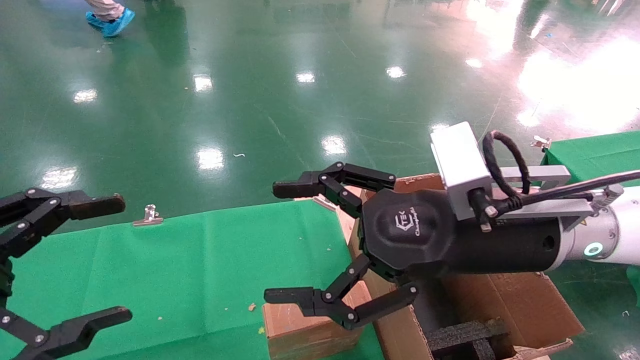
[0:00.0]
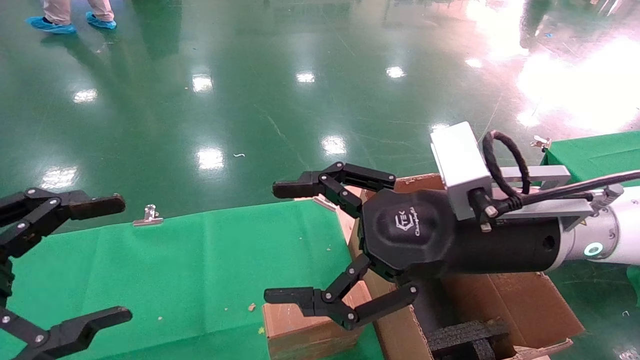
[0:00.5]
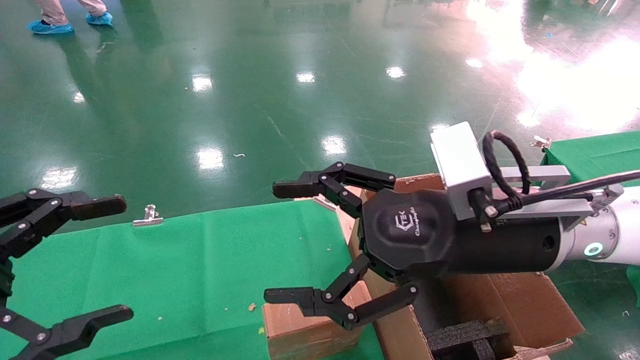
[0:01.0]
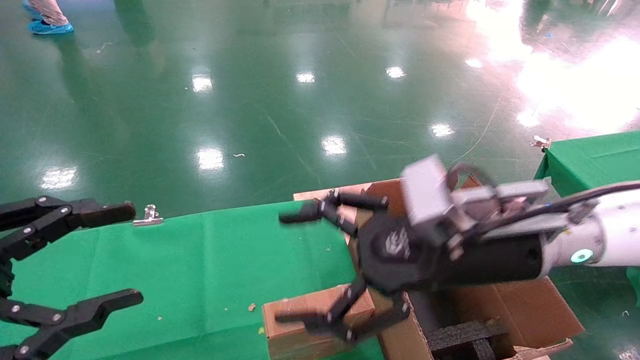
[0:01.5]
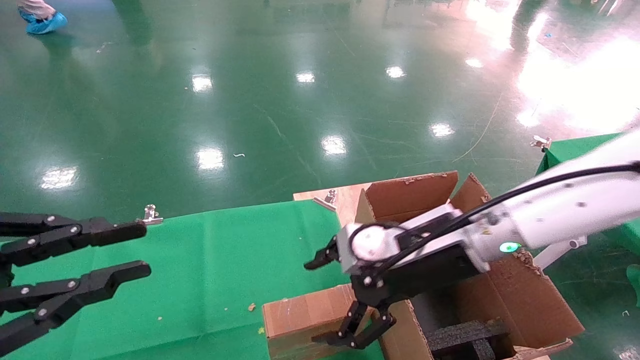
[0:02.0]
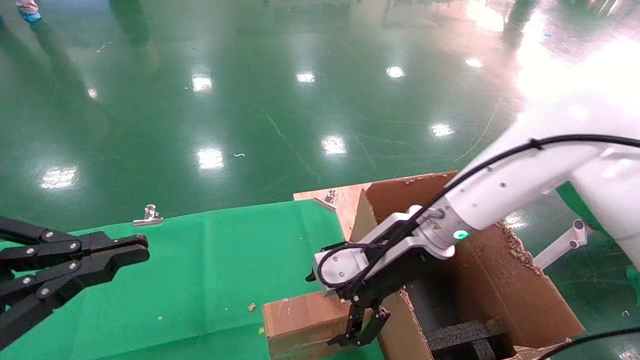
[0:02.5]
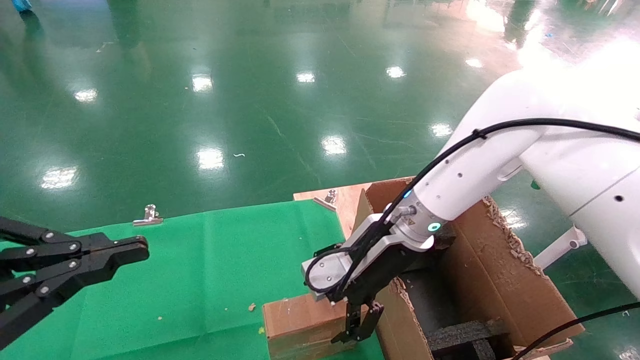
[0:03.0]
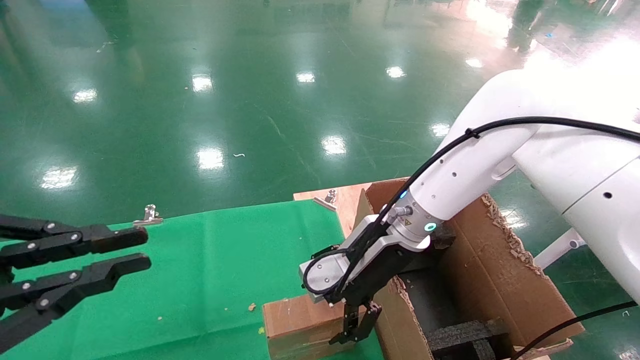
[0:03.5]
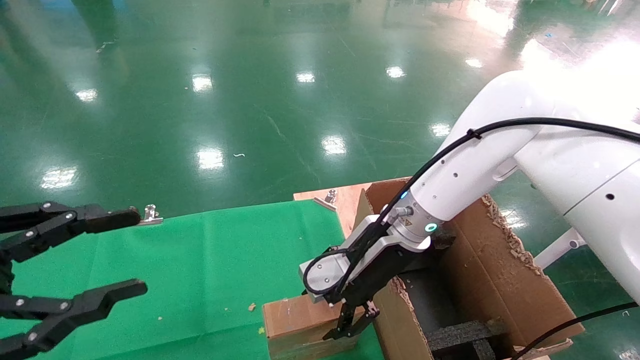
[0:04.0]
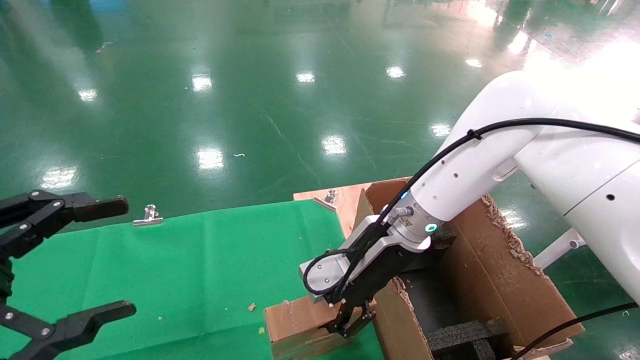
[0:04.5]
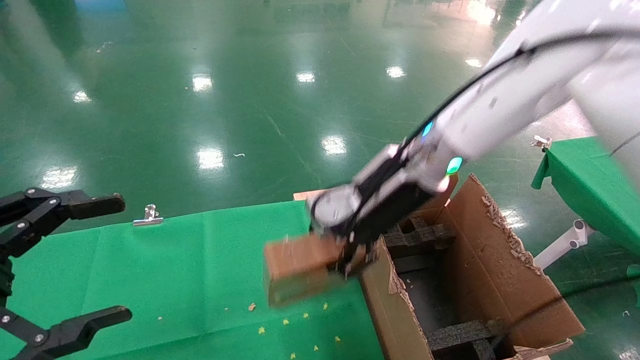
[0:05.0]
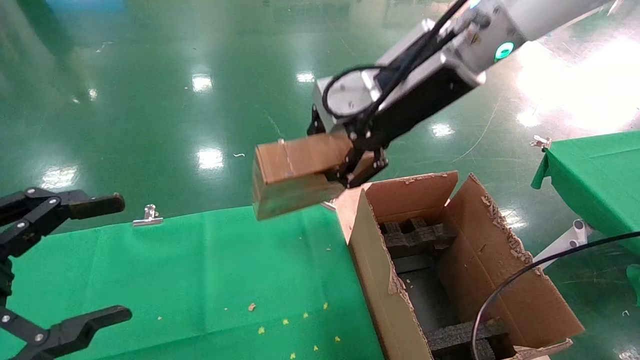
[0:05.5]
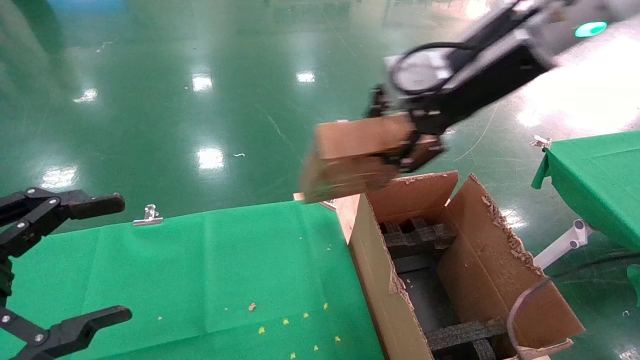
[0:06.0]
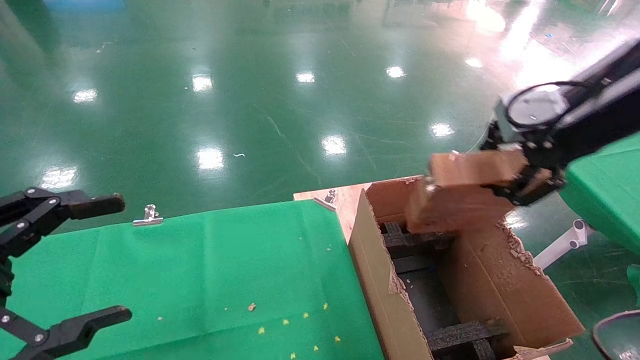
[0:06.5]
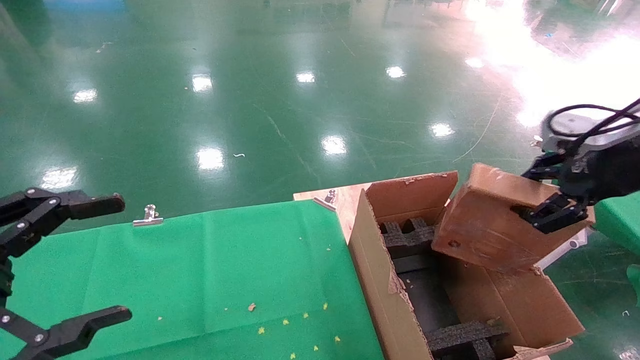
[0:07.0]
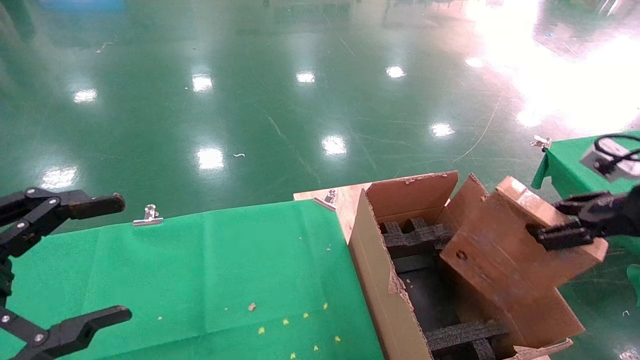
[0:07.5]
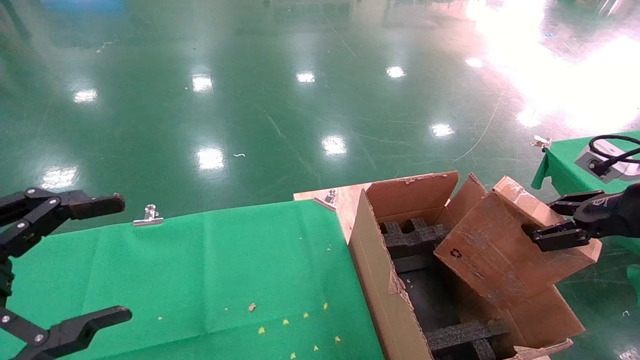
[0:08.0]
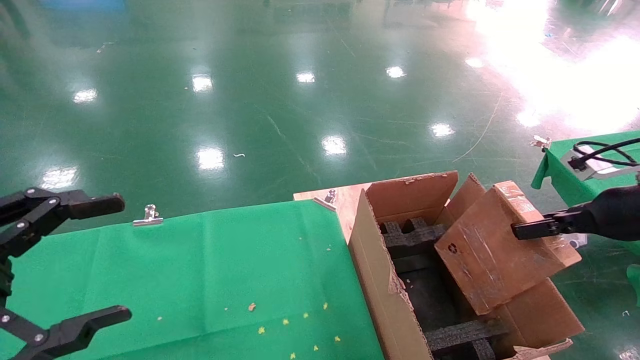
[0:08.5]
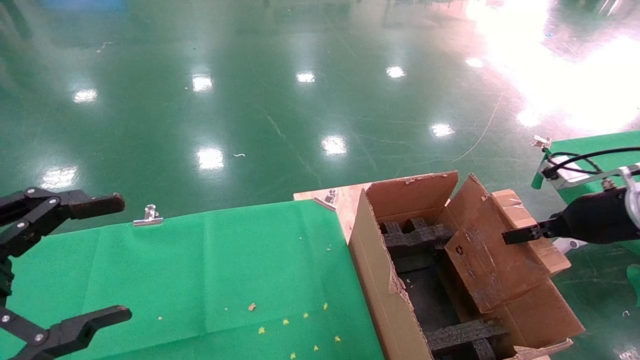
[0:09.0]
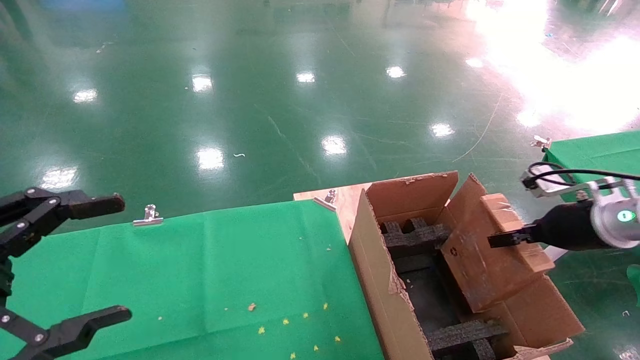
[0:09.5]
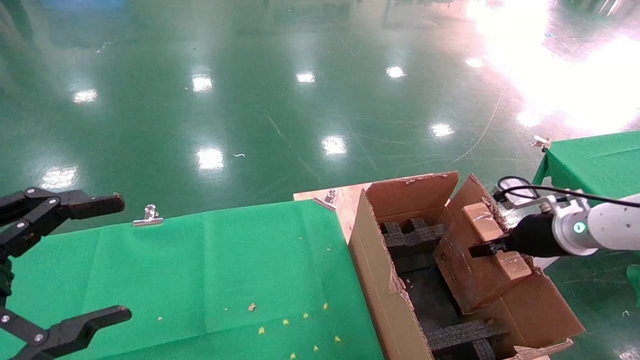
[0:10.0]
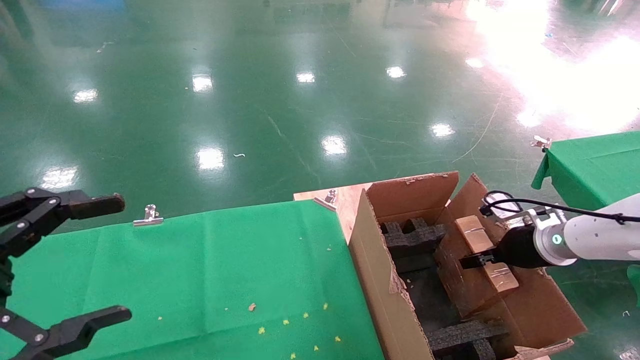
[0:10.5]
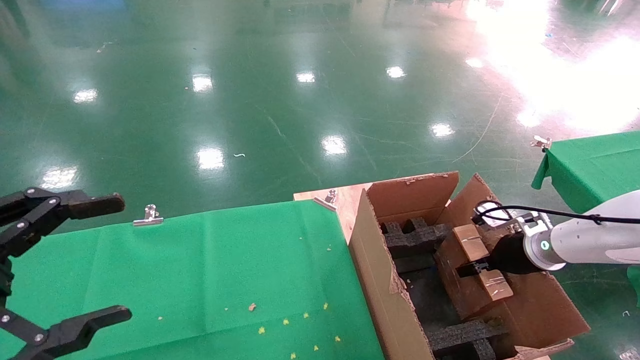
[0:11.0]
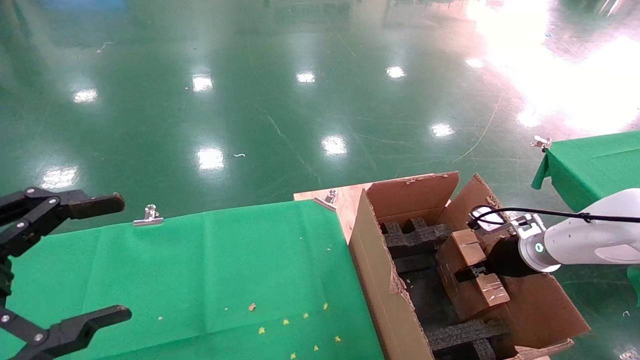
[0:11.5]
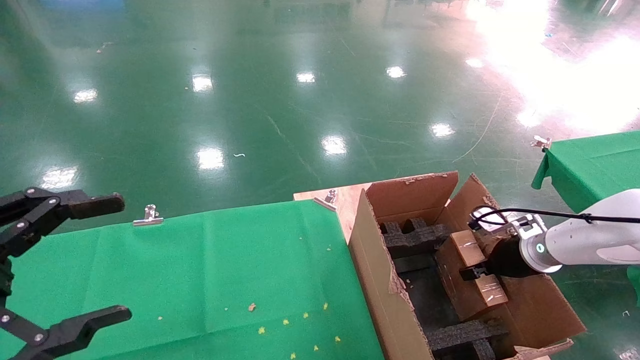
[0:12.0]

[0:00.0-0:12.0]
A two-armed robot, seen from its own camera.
Task of the whole recording: using a robotic arm to pick up a cardboard box and palace it the carton.
Step, 0:01.5 to 0:04.0: Pick up the mouse and the power cord paper box.
0:00.0 to 0:02.0: The right gripper travels forward and downward by some 10 cm. Meanwhile the left gripper closes its fingers.
0:02.0 to 0:04.0: The right gripper travels forward by some 5 cm.
0:04.0 to 0:06.0: The right gripper travels upward and to the right by about 25 cm, and closes its fingers. The left gripper opens its fingers.
0:06.0 to 0:08.0: The right gripper shifts about 30 cm to the right and downward.
0:08.0 to 0:10.0: The right gripper travels forward, downward and to the left by approximately 15 cm.
0:10.0 to 0:12.0: The right gripper shifts some 5 cm downward.

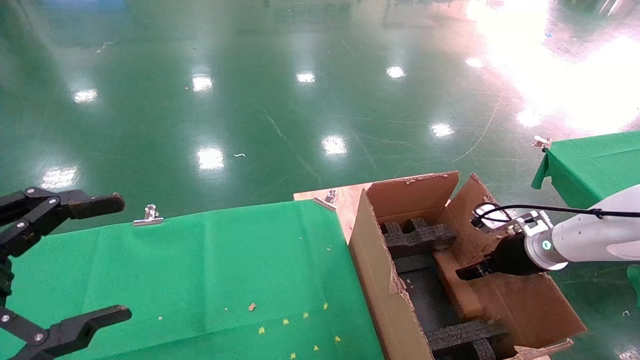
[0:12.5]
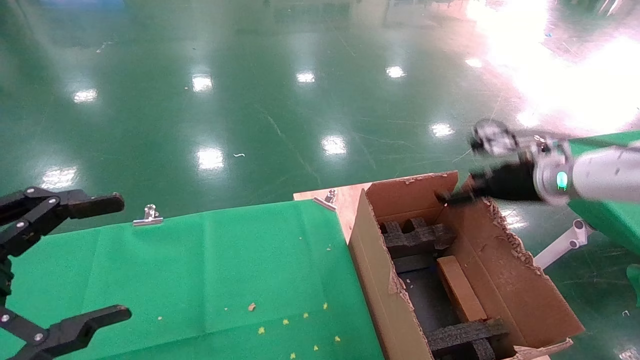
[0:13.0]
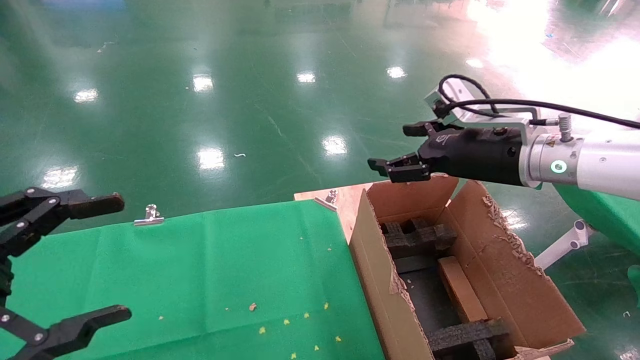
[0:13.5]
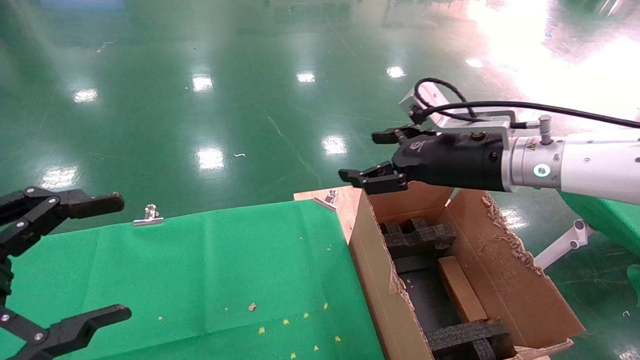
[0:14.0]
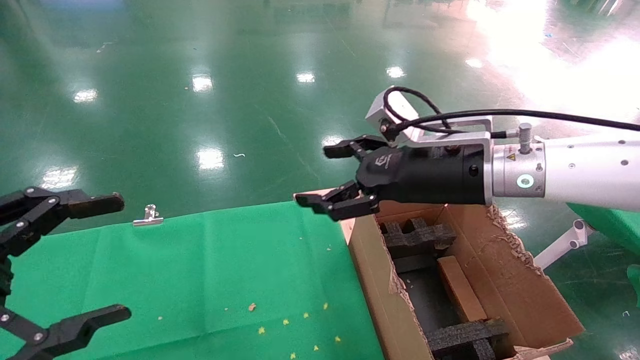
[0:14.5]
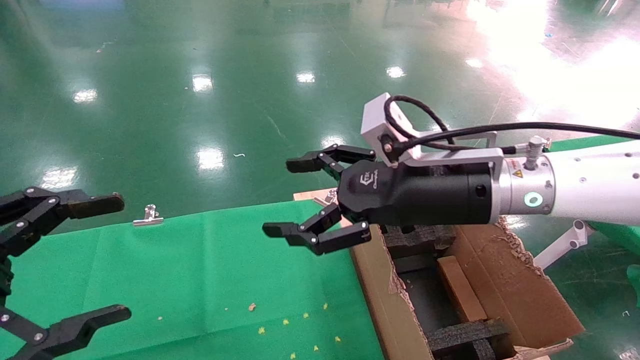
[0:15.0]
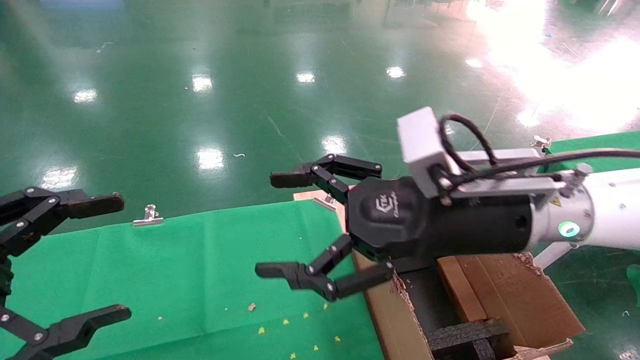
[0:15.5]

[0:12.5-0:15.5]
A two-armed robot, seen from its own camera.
Task of the whole recording: using a robotic arm to pick up a cardboard box and palace it the carton.
0:12.5 to 0:14.0: The right gripper travels to the left and upward by roughly 20 cm.
0:14.0 to 0:15.5: The right gripper travels backward and to the left by approximately 10 cm.
